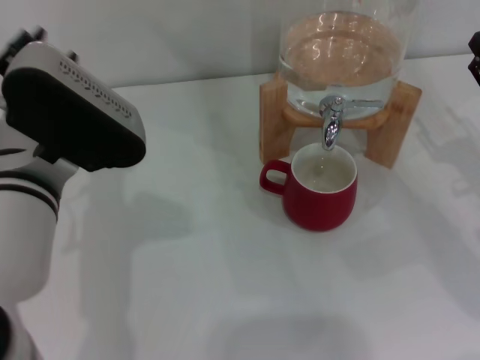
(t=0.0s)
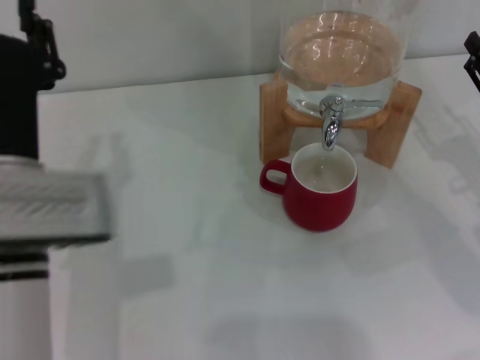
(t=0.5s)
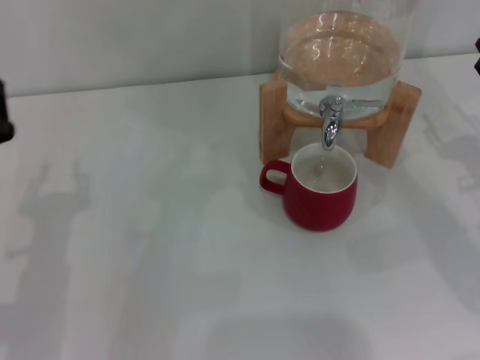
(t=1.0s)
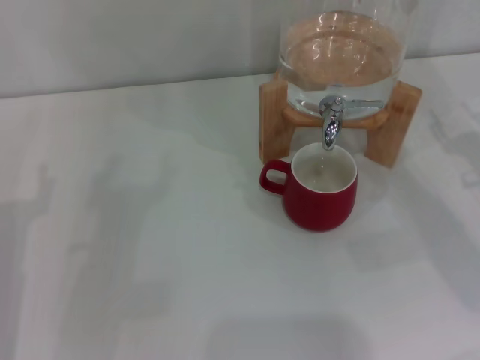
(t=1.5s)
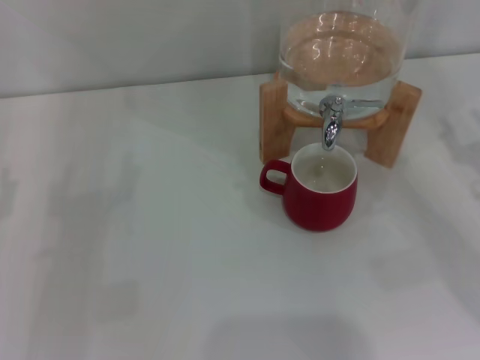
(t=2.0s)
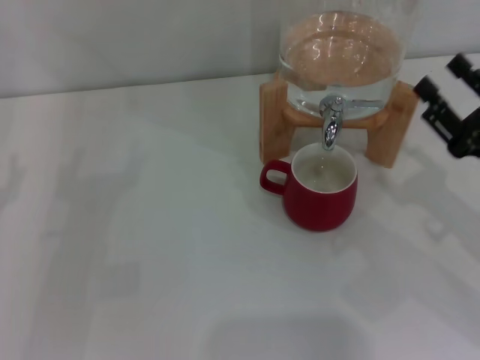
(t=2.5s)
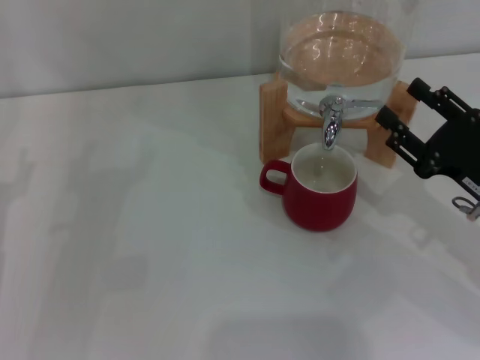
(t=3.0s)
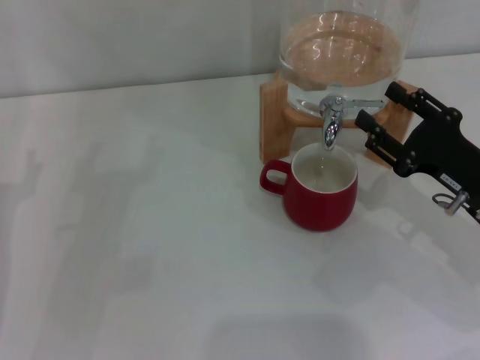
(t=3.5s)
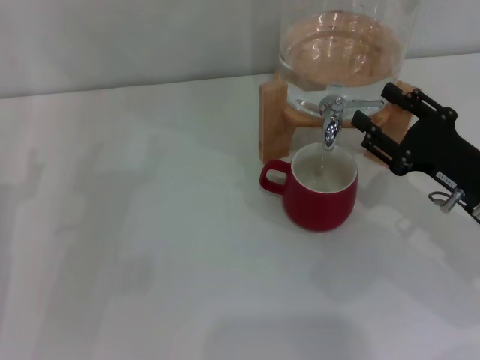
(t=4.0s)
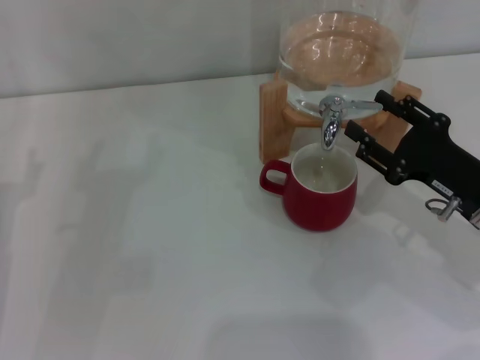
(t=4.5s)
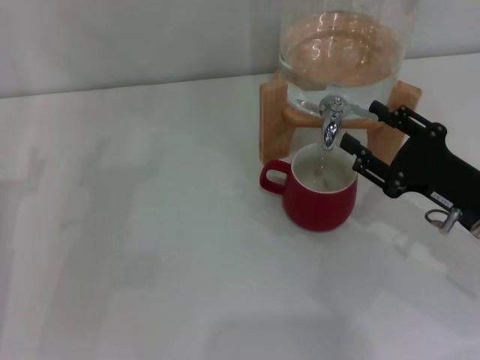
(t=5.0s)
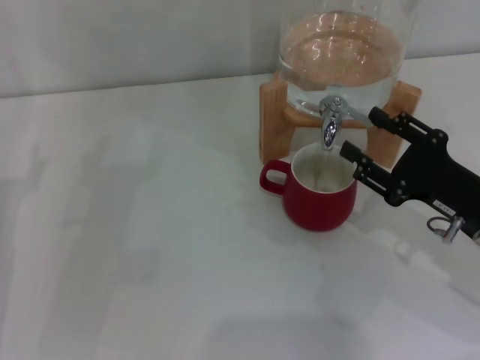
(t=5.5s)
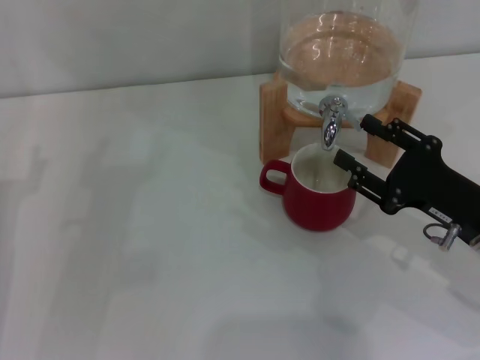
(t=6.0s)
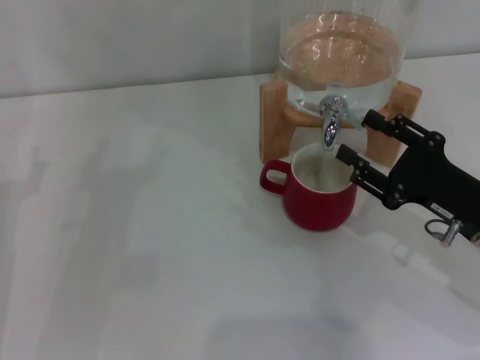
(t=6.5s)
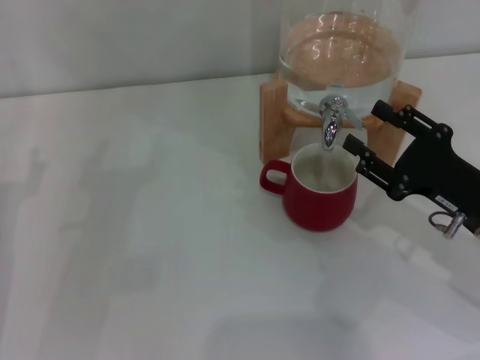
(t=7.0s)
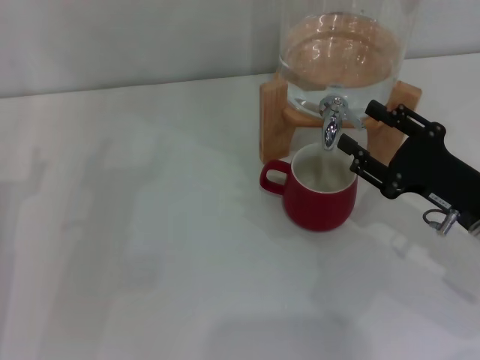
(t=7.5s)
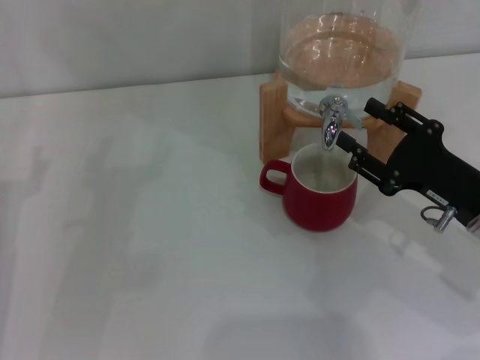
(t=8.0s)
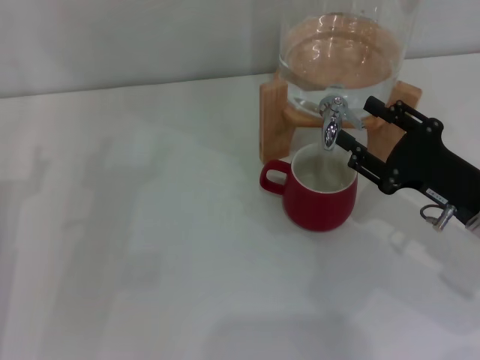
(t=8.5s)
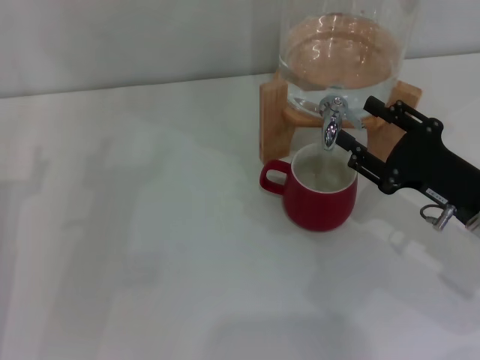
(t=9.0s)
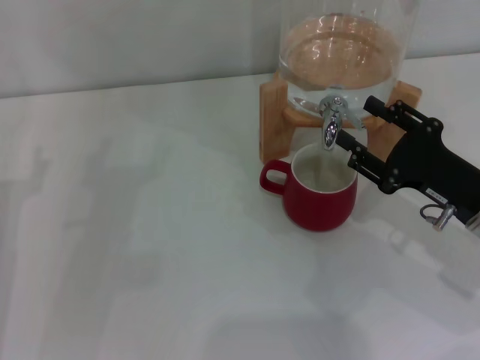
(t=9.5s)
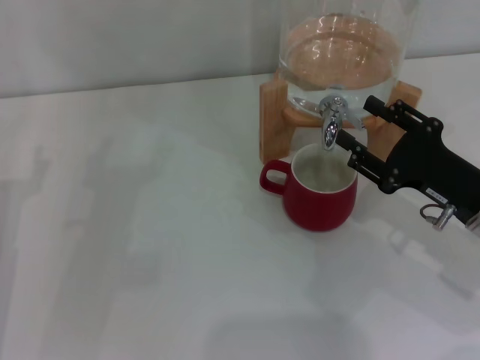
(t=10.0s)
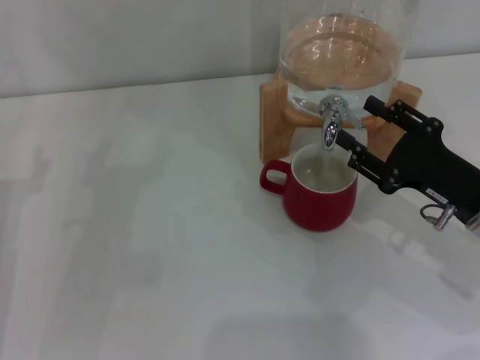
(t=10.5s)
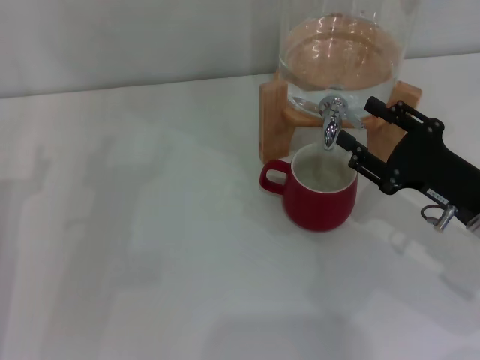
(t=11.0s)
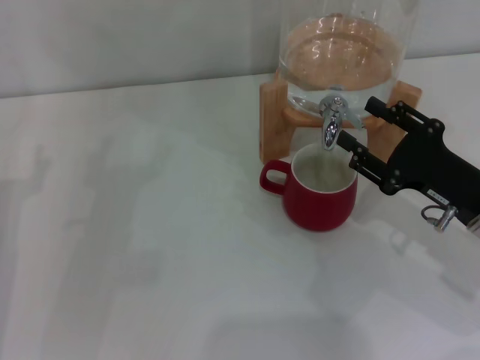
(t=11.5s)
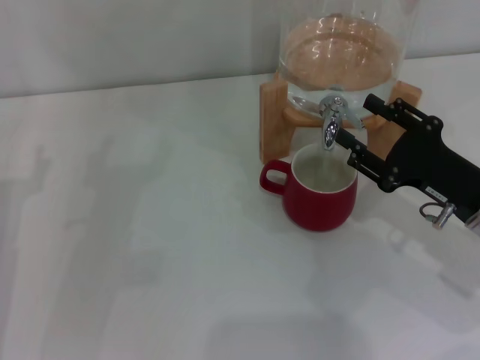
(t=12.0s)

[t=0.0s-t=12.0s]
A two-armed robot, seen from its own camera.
Task of the whole recording: the left gripper pick up the red cup and place it horizontally under the faucet, the right gripper turn on the faucet to fill the cup, and then turn off the faucet.
Step, t=0.0s to t=6.5s: Open the dispenser valve and fill the cup with water with the right gripper.
t=0.0s to t=2.0s: The left gripper moves to the left and downward, some 20 cm, and opens its fingers.
t=2.0s to t=4.0s: The right gripper goes roughly 5 cm to the left.
t=4.0s to t=6.0s: The grippers move only a little.
t=6.0s to t=8.0s: Both grippers stay put.
t=8.0s to t=12.0s: Both grippers stay put.

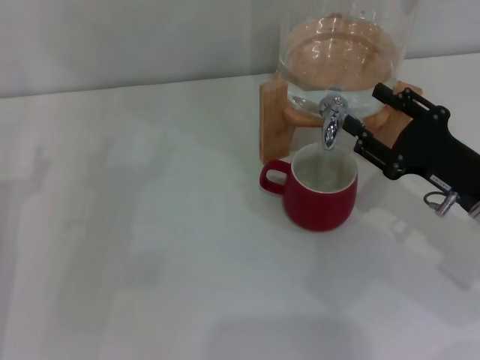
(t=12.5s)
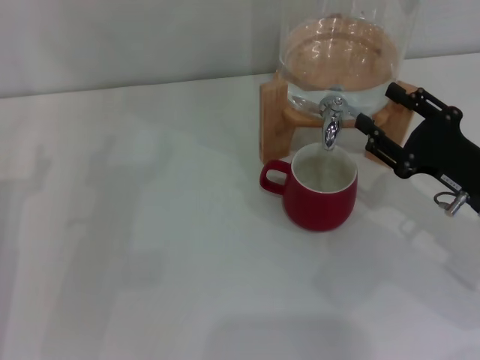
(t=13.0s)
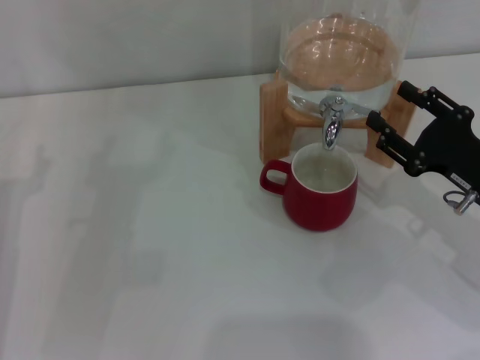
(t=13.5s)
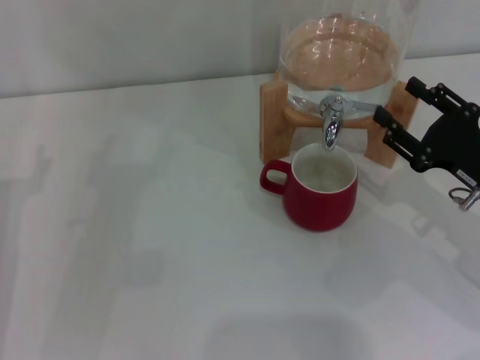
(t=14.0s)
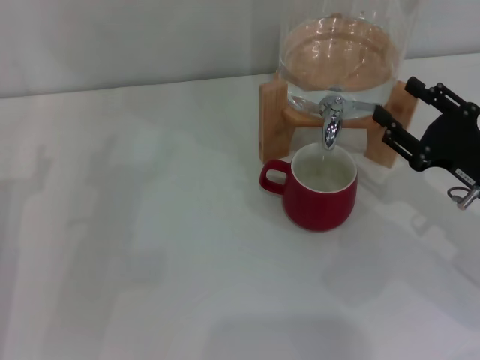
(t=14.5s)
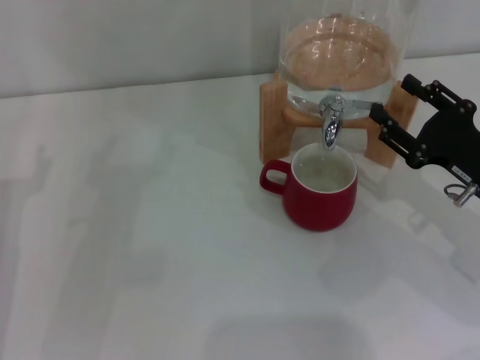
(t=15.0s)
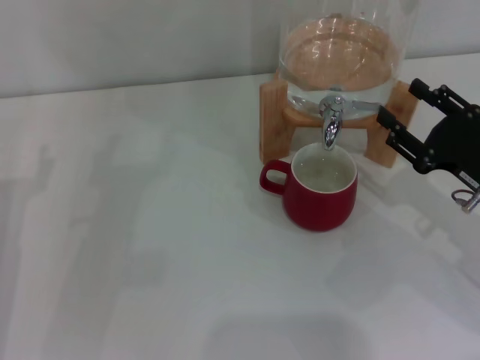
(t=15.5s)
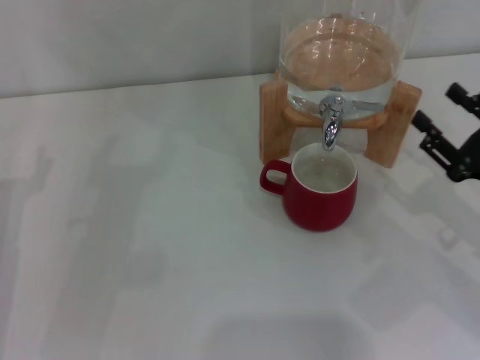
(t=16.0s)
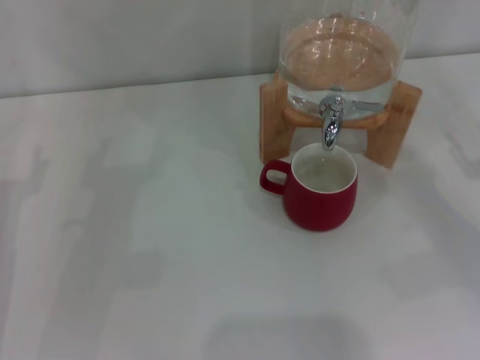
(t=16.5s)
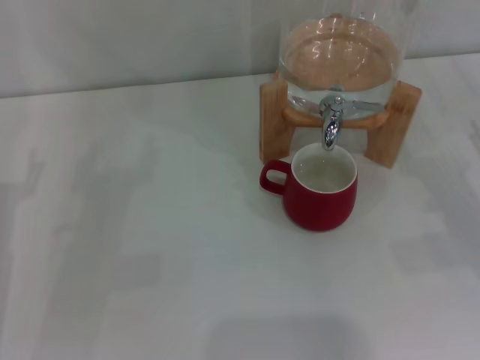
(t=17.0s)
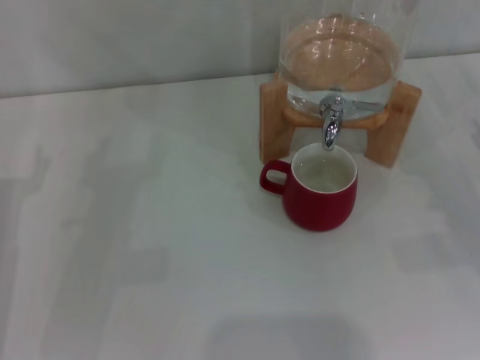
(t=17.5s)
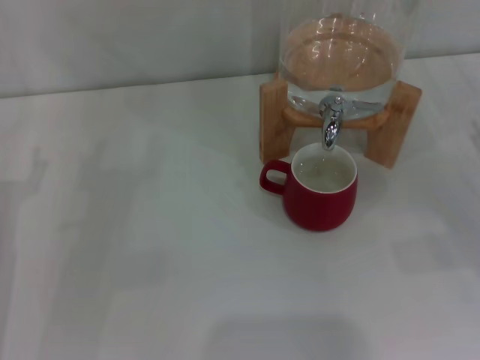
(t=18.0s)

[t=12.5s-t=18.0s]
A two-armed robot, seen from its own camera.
Task of the whole recording: the left gripper pick up the red cup and place it horizontally under the faucet, the right gripper turn on the faucet to fill the cup, and then turn off the faucet.
Step, t=12.5s to t=15.0s: Close the dispenser valve with the right gripper.
t=12.5s to t=16.0s: There are only small adjustments of the grippers.
t=16.0s to t=18.0s: The right gripper heads to the right, covering roughly 5 cm.

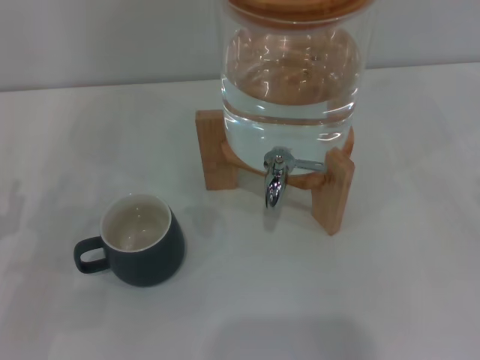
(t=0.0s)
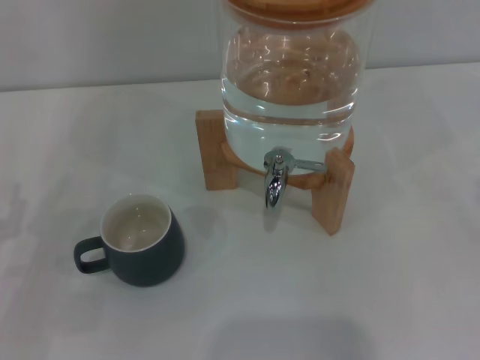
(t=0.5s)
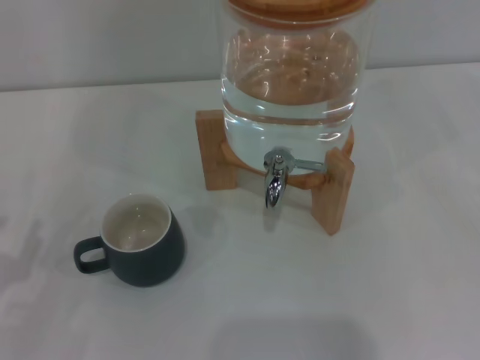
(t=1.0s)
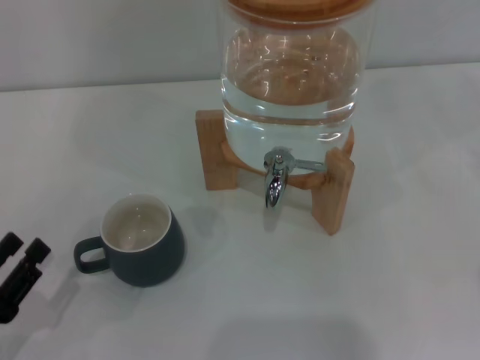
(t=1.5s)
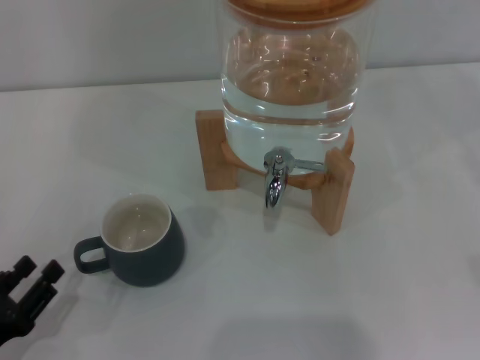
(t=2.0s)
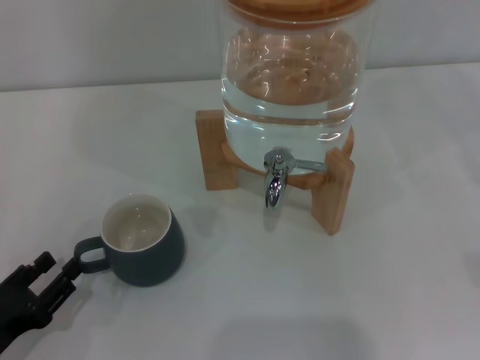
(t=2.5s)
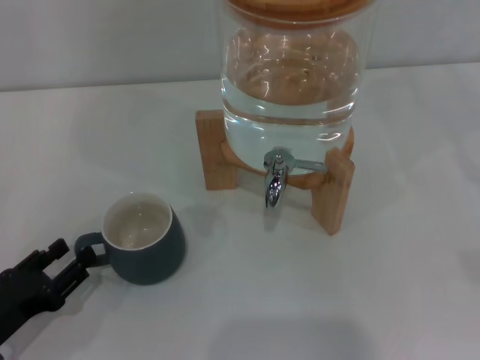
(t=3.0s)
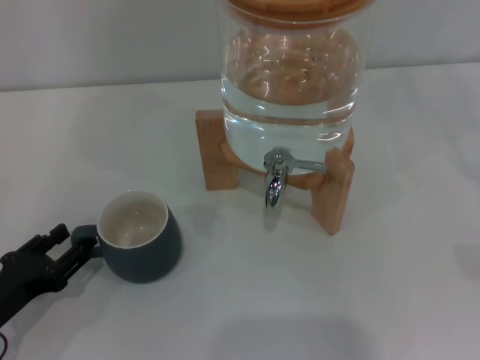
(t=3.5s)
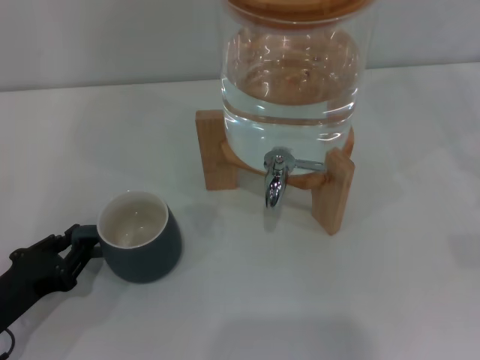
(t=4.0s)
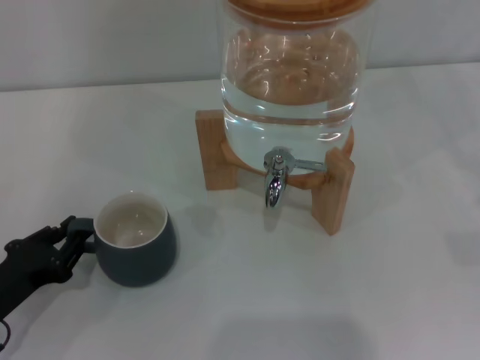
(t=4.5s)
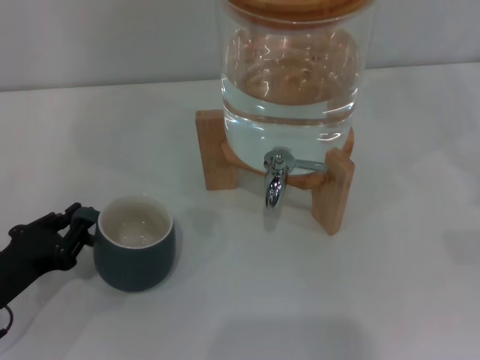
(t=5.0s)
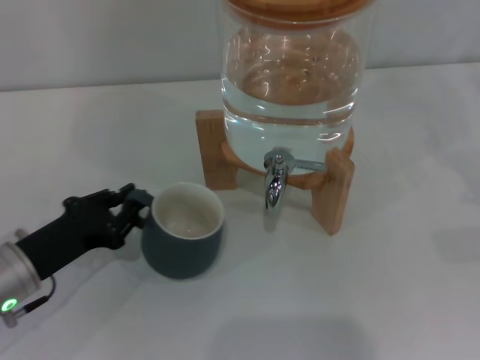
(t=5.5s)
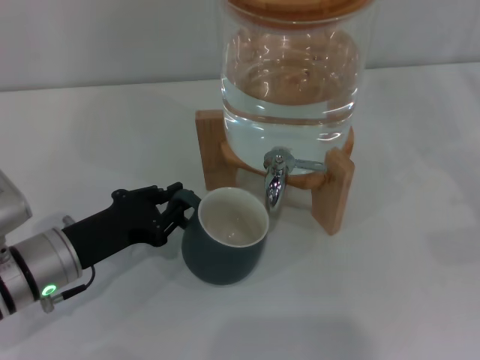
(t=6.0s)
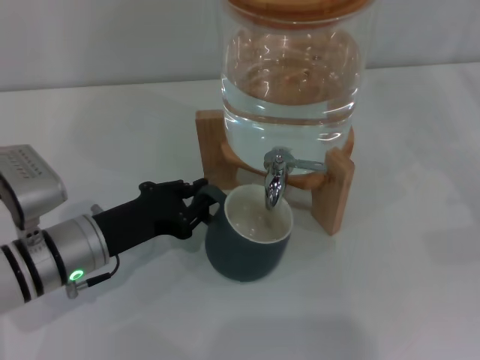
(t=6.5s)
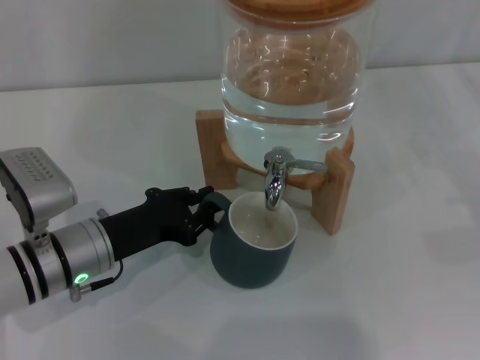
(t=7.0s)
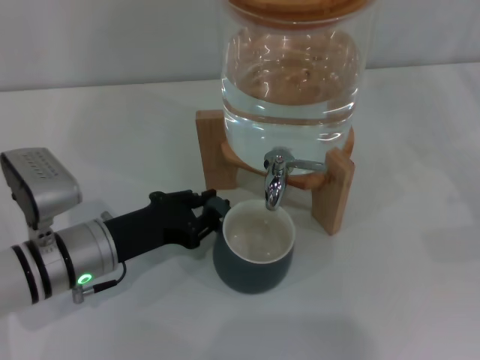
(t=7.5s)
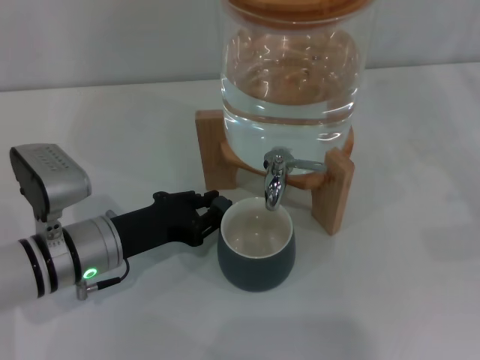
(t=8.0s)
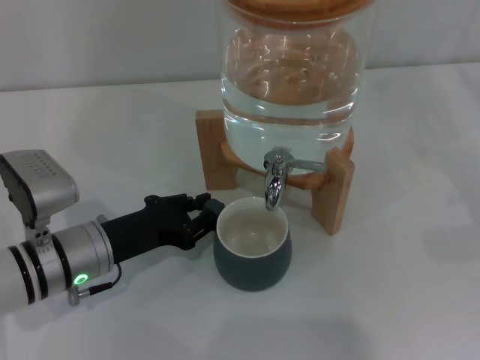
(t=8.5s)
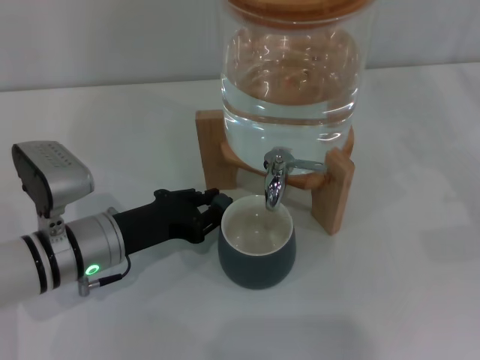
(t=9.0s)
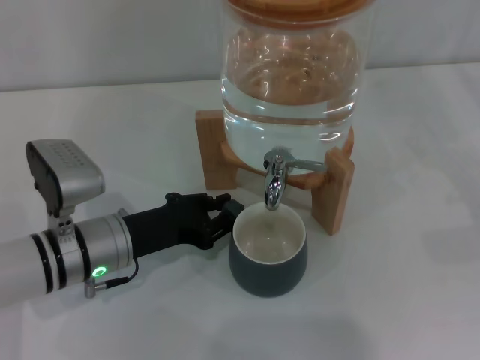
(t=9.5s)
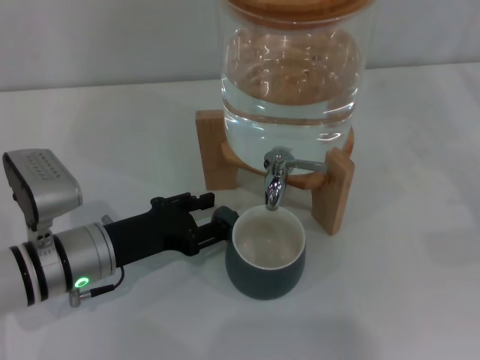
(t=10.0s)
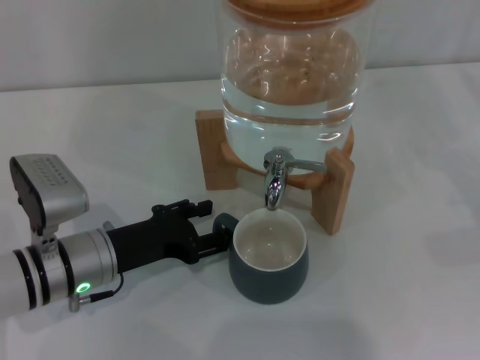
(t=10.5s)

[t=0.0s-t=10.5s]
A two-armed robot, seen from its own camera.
Task of the whole recording: the left gripper pick up the black cup and place it horizontally under the faucet, the right gripper turn on the faucet to fill the cup, and then turn off the faucet.
t=0.0s to t=2.0s: The left gripper is displaced backward by roughly 10 cm.
t=2.0s to t=4.0s: The left gripper heads forward, covering approximately 5 cm.
t=4.0s to t=6.5s: The left gripper heads to the right and forward, covering roughly 15 cm, and closes.
t=6.5s to t=8.5s: The grippers stay close to where they were, moving slightly.
t=8.5s to t=10.5s: The left gripper opens its fingers.
